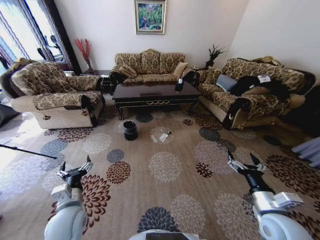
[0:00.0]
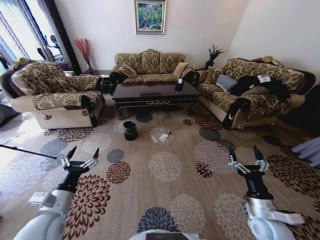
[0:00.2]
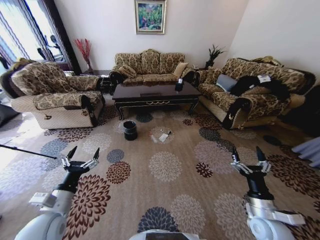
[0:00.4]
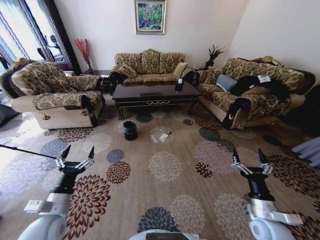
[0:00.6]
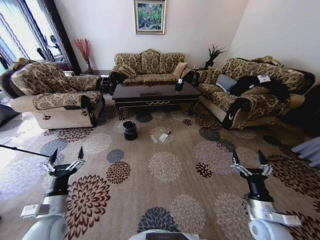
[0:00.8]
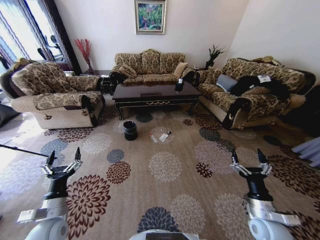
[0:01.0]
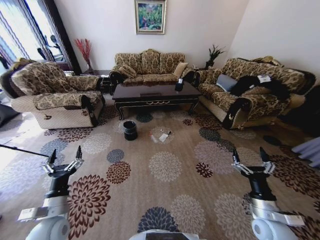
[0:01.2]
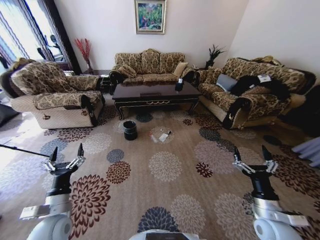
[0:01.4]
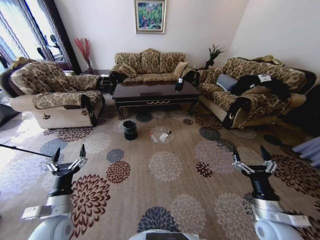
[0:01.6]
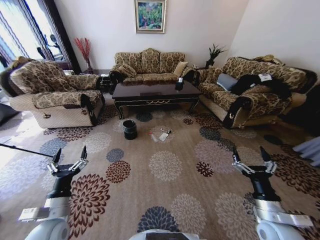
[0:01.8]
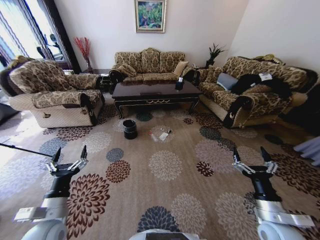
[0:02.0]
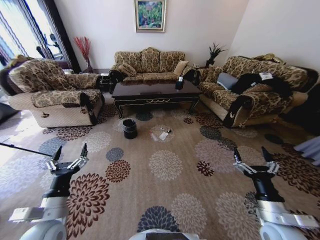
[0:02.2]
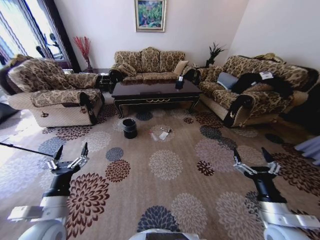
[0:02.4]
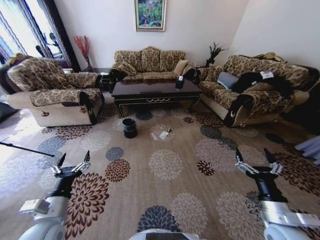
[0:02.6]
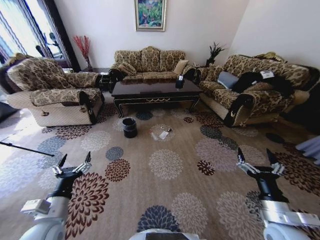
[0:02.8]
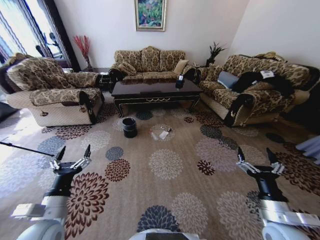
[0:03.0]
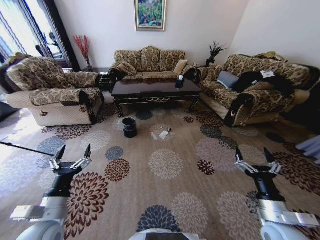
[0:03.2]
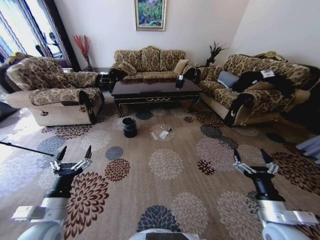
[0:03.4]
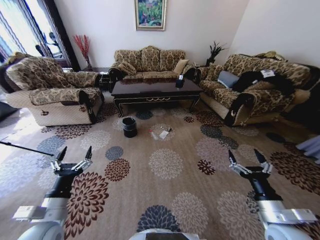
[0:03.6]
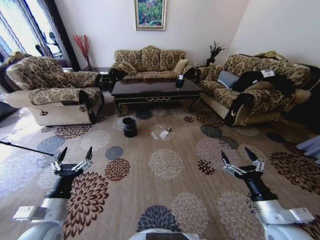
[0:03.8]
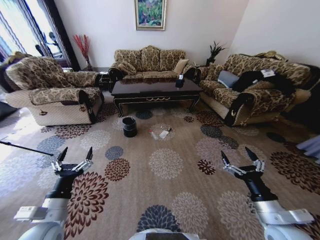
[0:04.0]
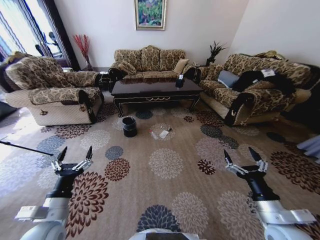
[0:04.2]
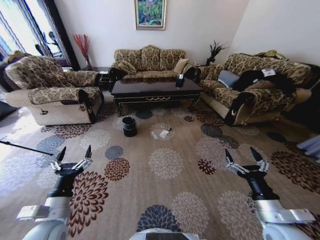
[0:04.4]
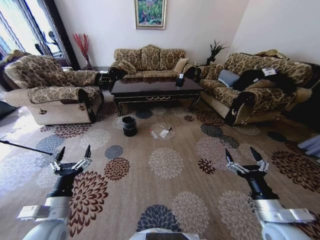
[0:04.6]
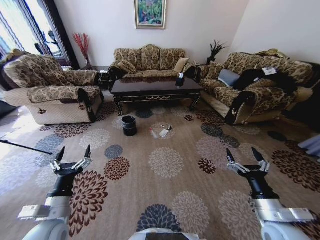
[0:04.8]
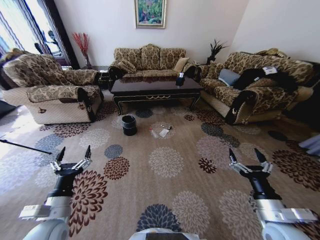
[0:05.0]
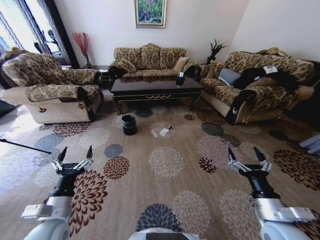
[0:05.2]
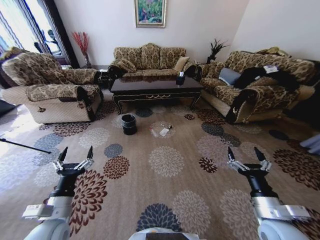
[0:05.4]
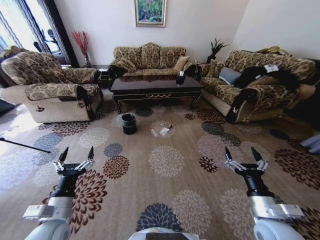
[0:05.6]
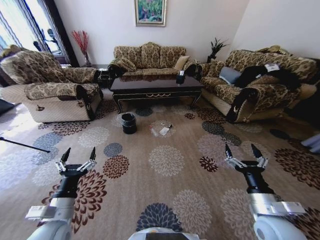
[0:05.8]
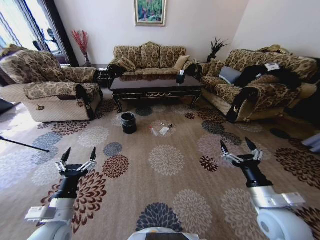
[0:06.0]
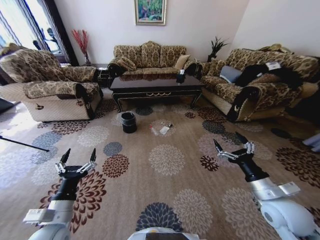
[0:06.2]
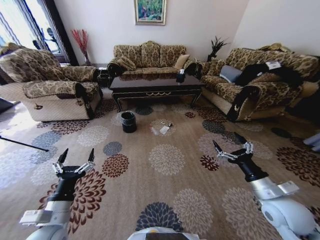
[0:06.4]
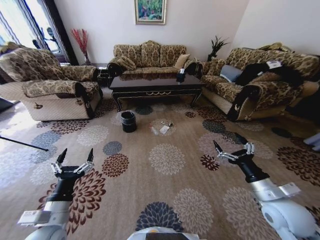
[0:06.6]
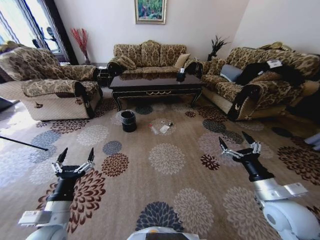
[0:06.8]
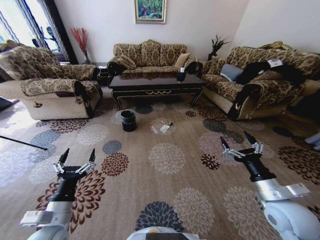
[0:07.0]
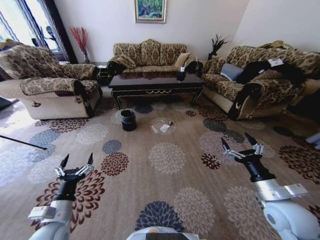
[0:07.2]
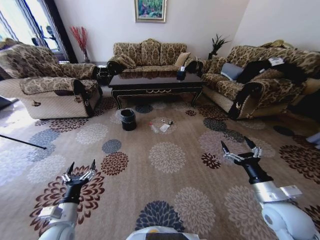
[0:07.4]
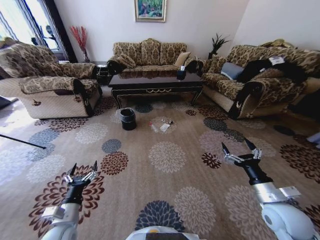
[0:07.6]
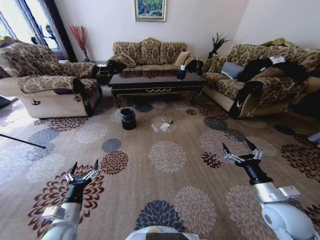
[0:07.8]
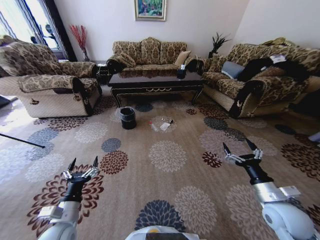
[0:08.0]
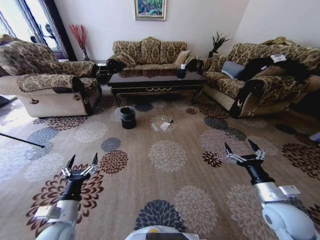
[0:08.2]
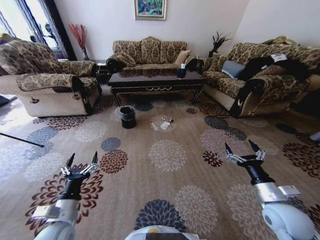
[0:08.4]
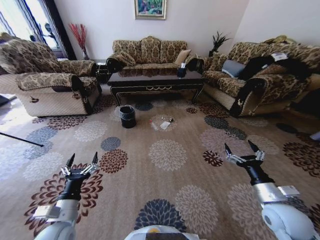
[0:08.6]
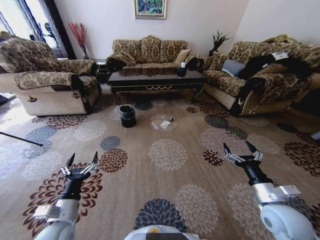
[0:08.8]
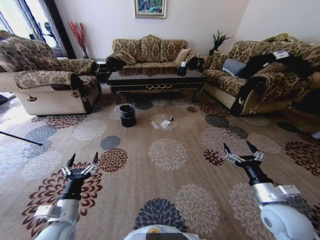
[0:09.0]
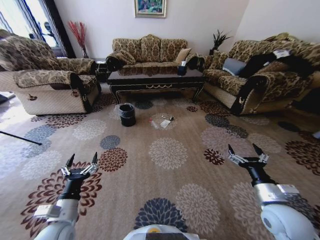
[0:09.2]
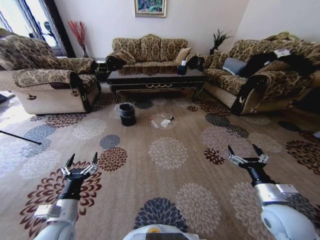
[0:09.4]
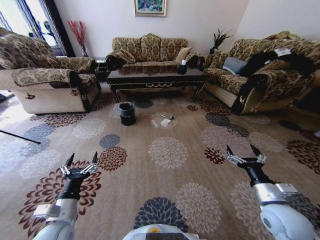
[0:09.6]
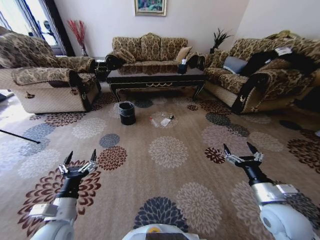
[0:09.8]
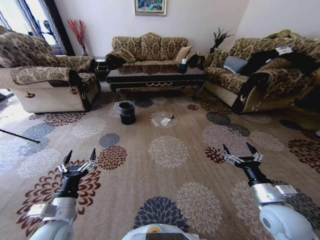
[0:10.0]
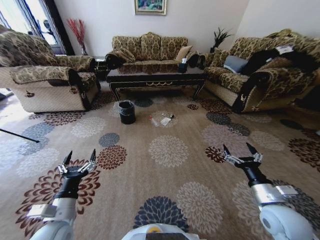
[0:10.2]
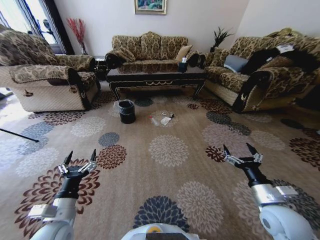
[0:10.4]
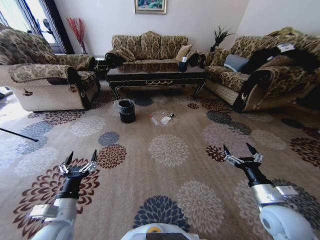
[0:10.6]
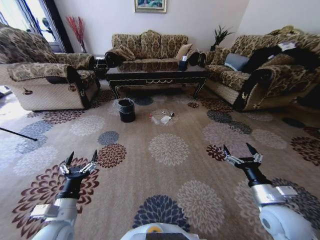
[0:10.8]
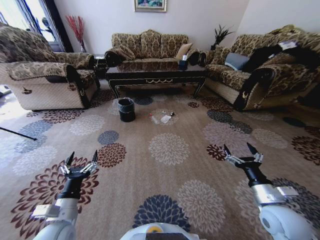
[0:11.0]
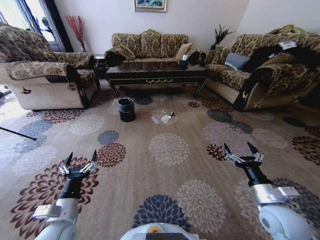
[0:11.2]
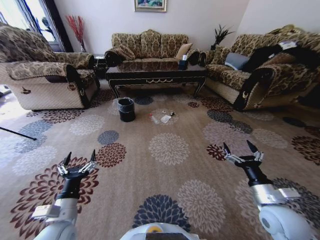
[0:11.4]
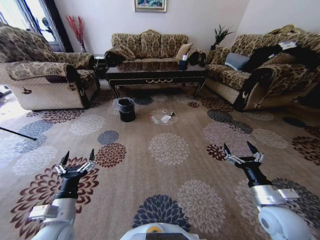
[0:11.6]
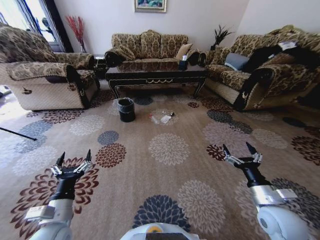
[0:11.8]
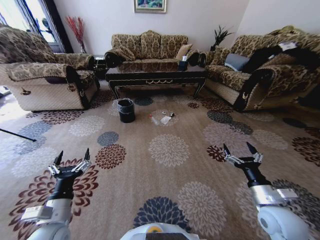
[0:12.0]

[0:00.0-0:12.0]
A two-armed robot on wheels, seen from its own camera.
Task of the whole recording: Move to the front of the table and pick up the trash from the floor, then place it into the trash bin.
0:01.6 to 0:03.0: The left gripper moves roughly 5 cm.
0:03.0 to 0:04.4: The grippers stay close to where they were, moving slightly.
0:06.0 to 0:07.6: The left gripper shifts approximately 10 cm downward.
0:07.6 to 0:09.0: The left gripper moves some 5 cm.
0:10.4 to 0:12.0: The grippers move only a little.

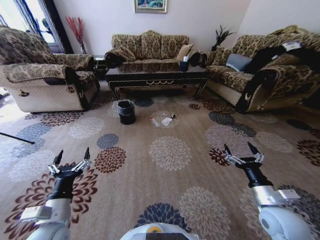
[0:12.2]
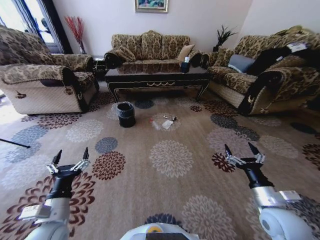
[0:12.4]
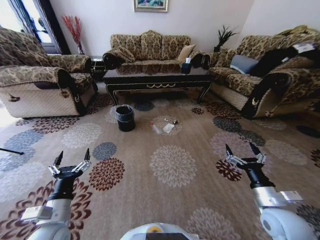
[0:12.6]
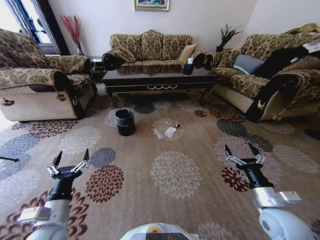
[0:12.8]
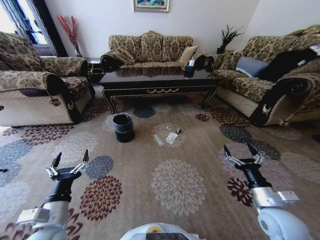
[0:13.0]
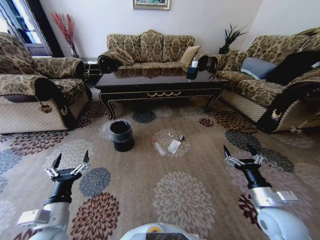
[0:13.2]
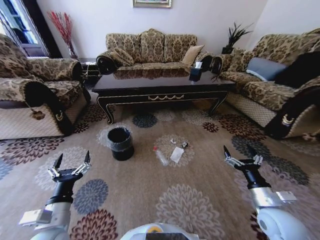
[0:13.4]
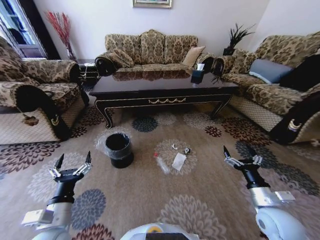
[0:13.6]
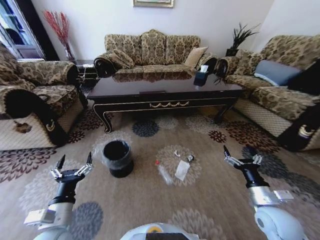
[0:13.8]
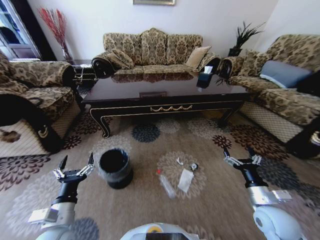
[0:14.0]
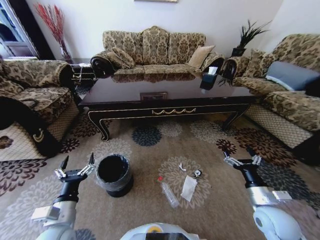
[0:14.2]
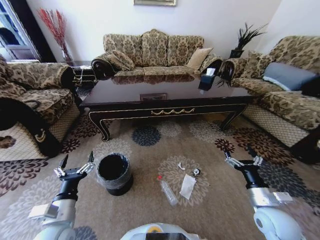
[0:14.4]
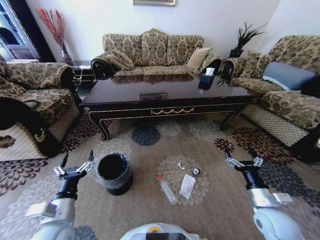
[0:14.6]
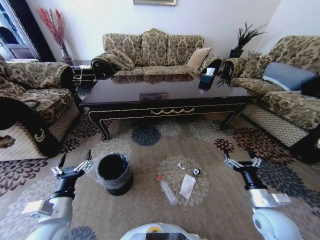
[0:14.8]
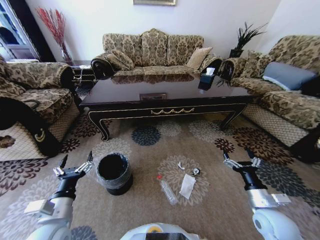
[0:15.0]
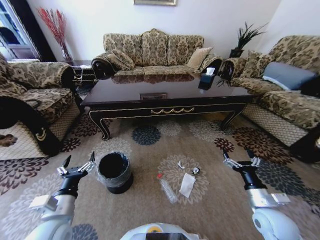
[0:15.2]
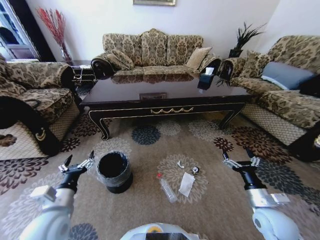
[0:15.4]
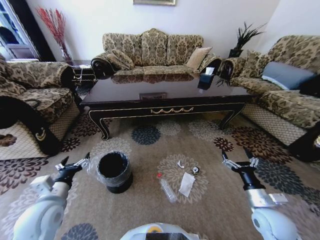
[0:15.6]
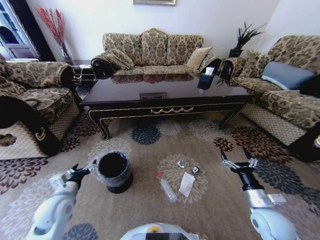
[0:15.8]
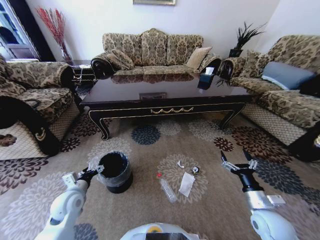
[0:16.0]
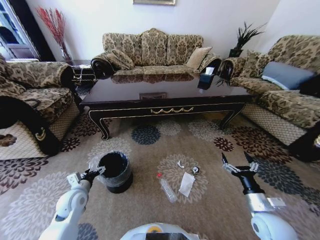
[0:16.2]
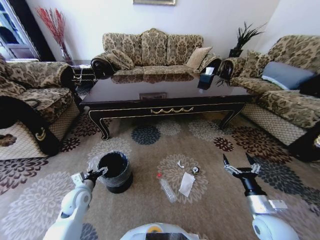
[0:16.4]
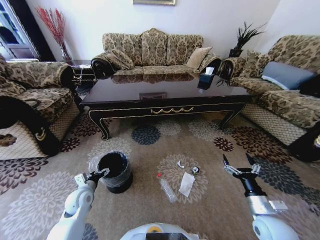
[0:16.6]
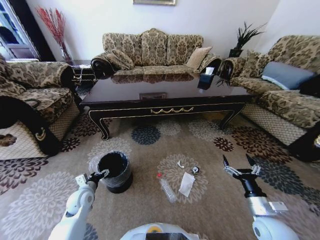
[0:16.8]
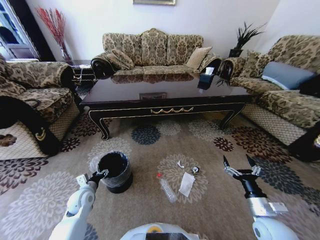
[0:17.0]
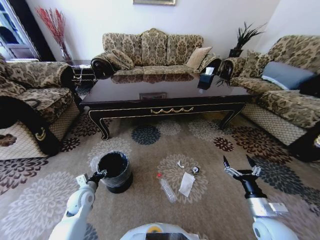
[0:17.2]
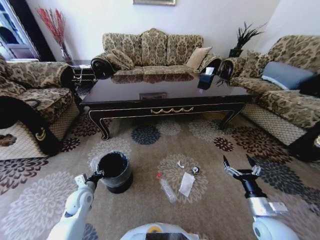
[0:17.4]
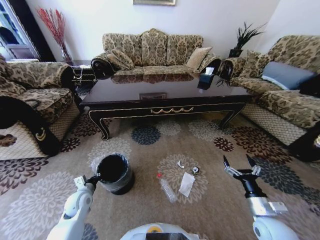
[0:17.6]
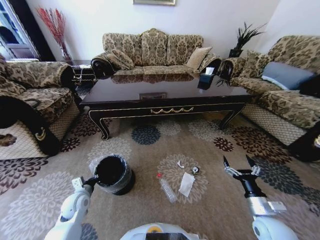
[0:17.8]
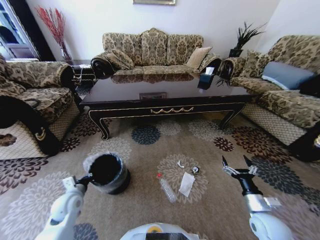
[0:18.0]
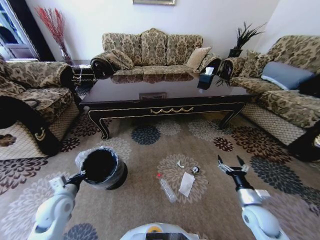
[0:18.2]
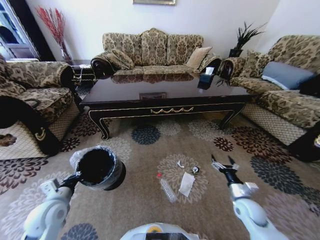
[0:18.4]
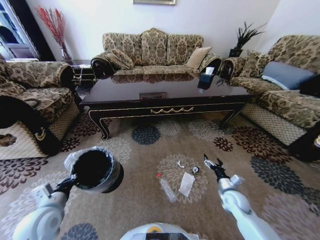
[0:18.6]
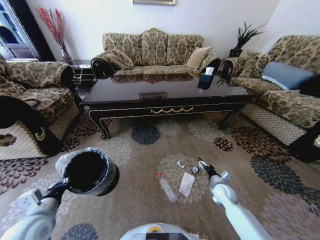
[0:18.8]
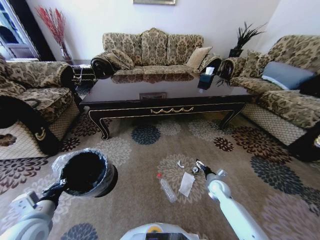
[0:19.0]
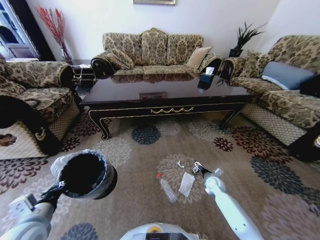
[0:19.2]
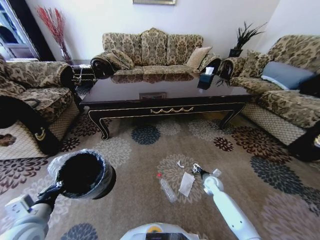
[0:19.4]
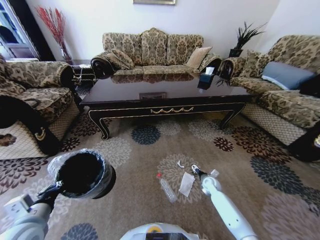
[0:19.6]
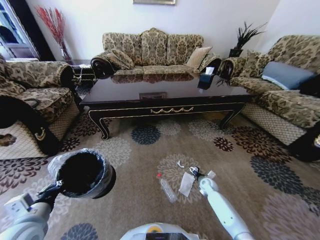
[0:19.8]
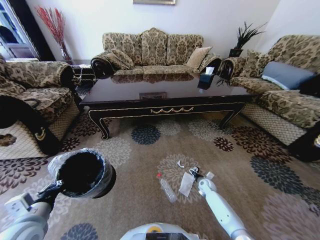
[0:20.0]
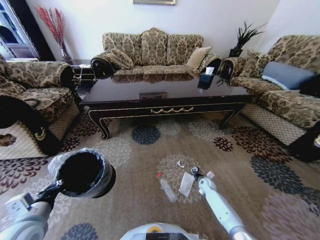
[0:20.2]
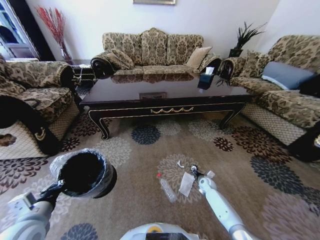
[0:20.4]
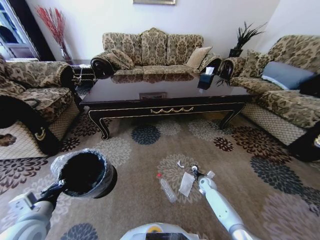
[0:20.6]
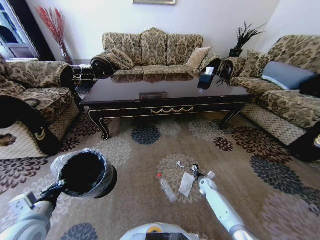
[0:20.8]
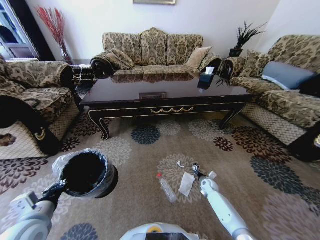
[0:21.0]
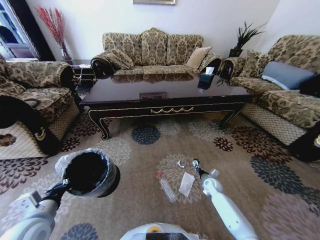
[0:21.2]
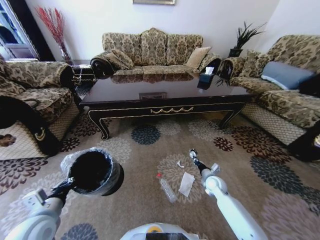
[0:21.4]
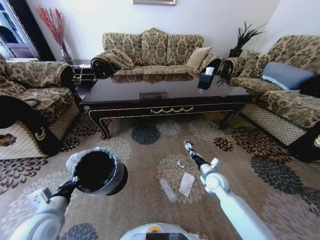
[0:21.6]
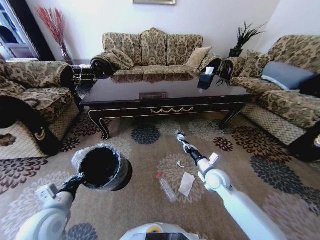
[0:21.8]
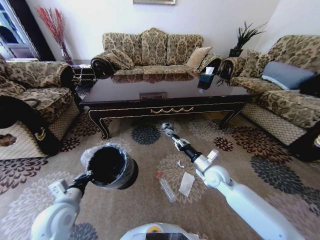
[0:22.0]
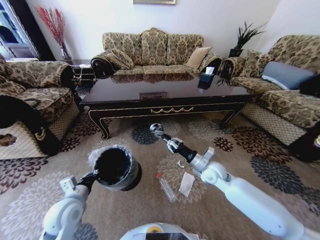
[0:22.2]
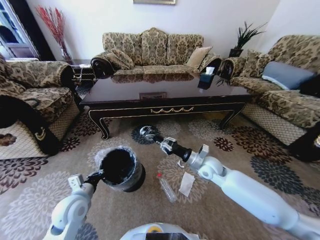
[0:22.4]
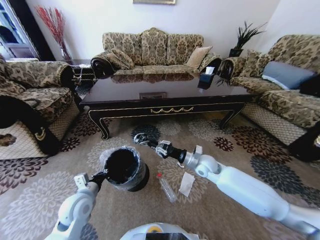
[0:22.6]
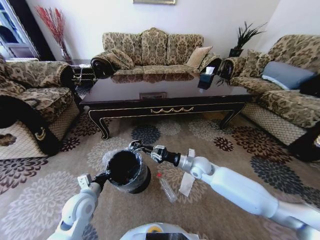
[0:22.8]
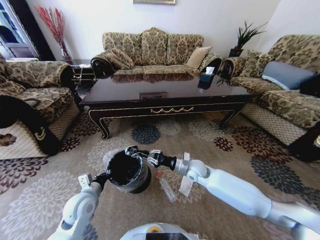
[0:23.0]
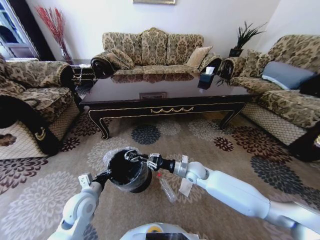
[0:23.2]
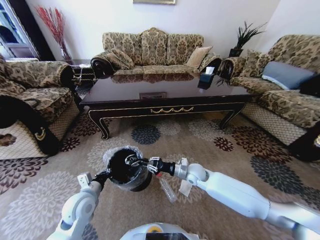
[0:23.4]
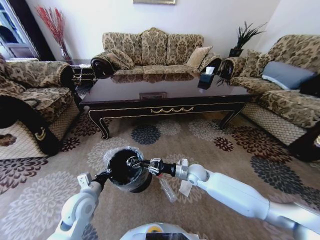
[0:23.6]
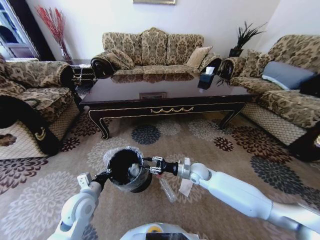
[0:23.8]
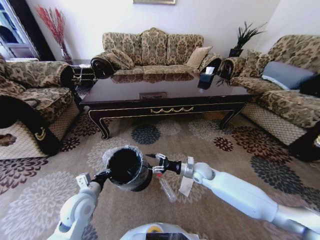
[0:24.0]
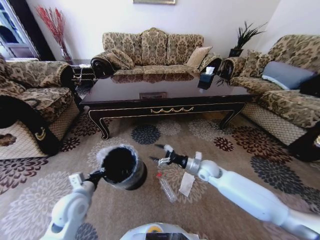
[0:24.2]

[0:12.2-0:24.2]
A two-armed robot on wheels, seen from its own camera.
Task of the whole recording: Move to the front of the table and pick up the trash from the floor, then place it into the trash bin.
0:15.2 to 0:16.6: The left gripper is displaced forward and downward by some 20 cm.
0:16.6 to 0:18.2: The left gripper shifts approximately 5 cm upward, and closes up; the right gripper shifts by approximately 5 cm.
0:18.2 to 0:19.8: The left gripper moves backward and upward, some 10 cm. The right gripper travels forward and downward by approximately 25 cm.
0:19.8 to 0:21.2: The right gripper closes up.
0:21.2 to 0:22.6: The right gripper heads upward and to the left, covering some 25 cm. The left gripper heads forward, to the right and downward, covering approximately 10 cm.
0:22.6 to 0:24.2: The right gripper changes place by approximately 5 cm, and opens.
